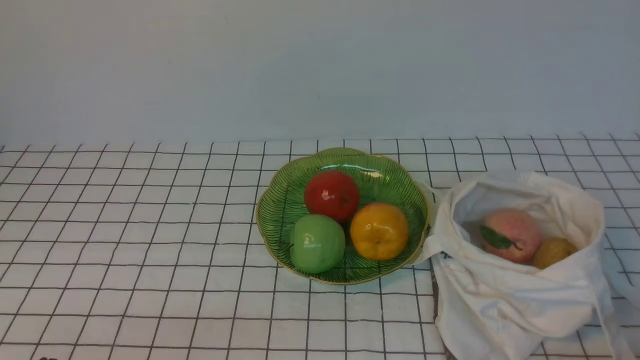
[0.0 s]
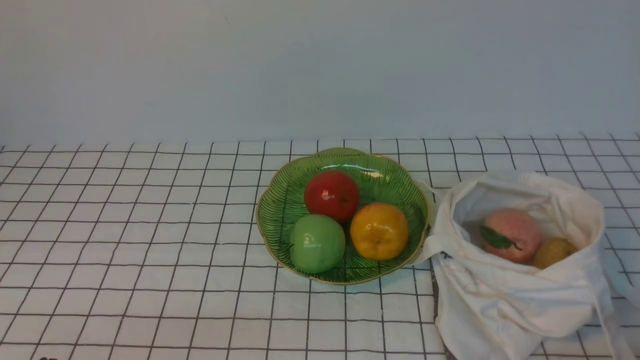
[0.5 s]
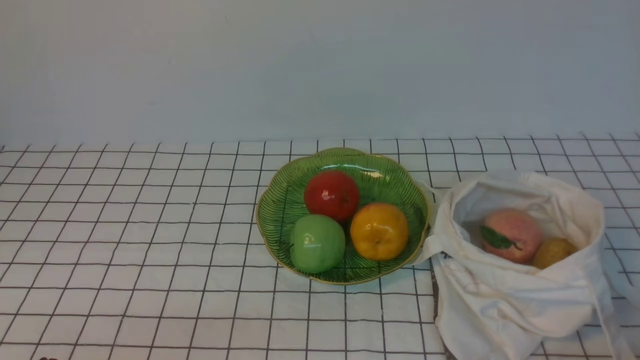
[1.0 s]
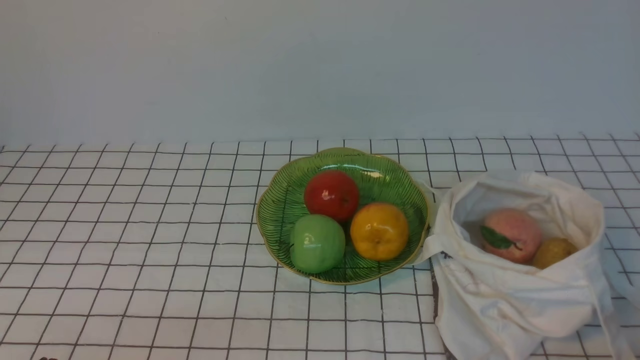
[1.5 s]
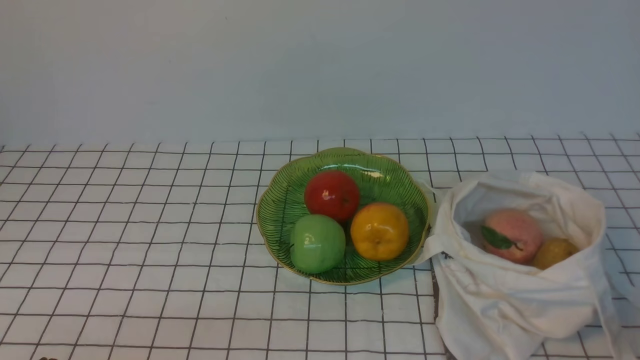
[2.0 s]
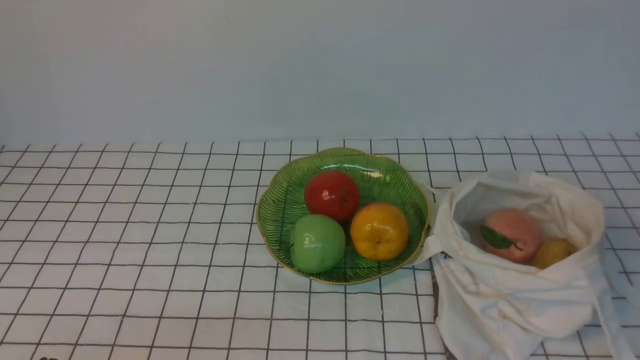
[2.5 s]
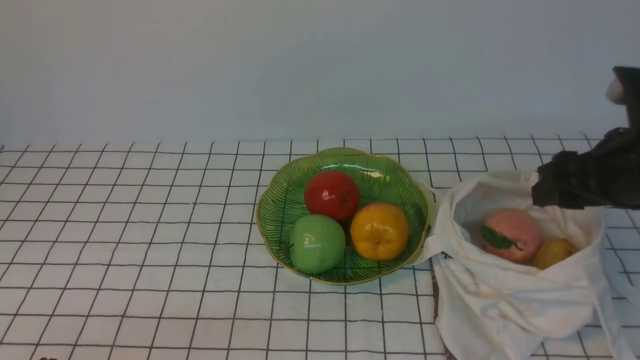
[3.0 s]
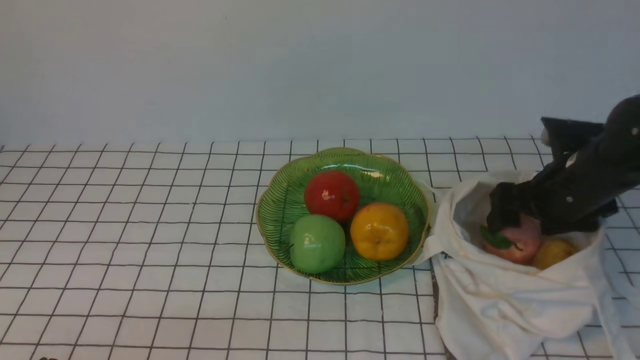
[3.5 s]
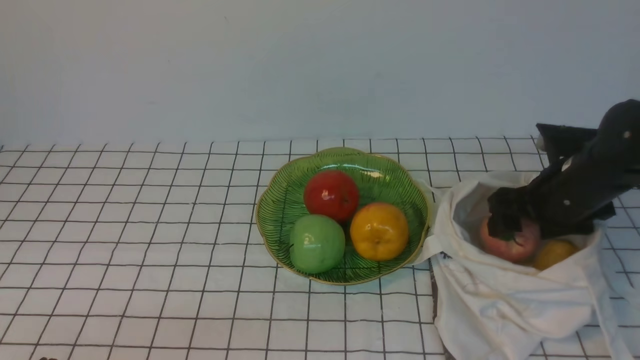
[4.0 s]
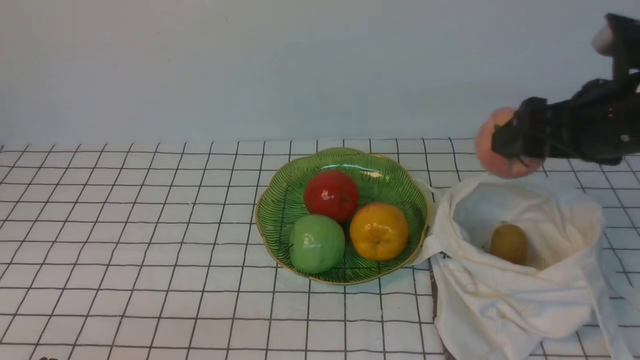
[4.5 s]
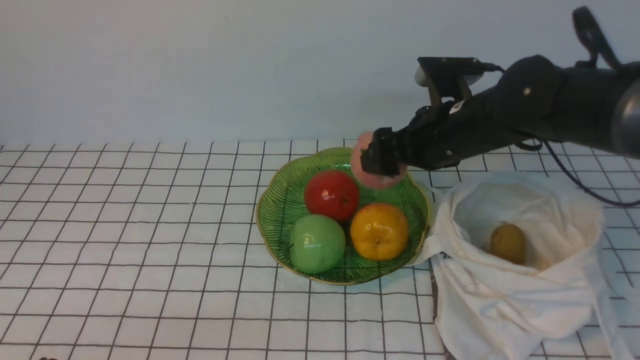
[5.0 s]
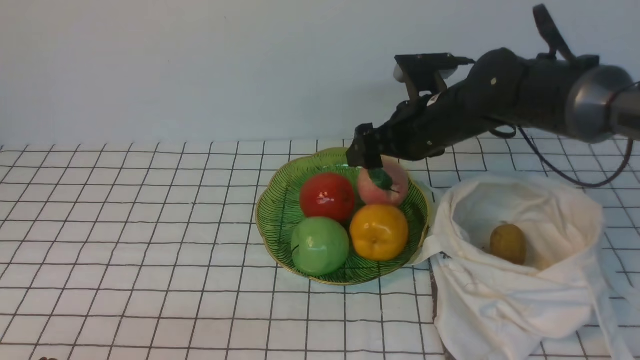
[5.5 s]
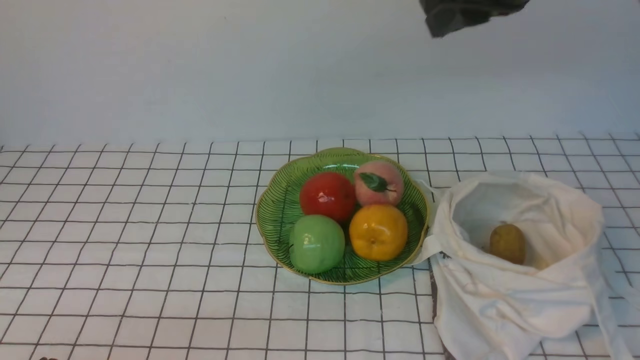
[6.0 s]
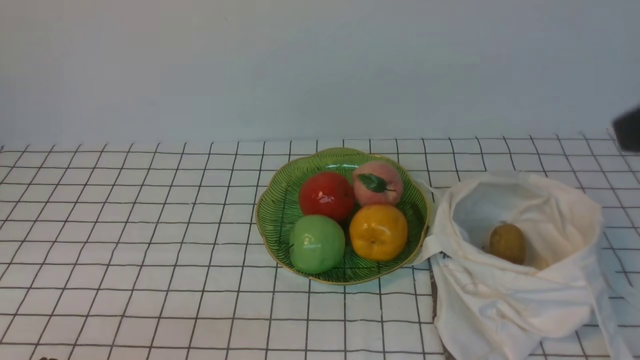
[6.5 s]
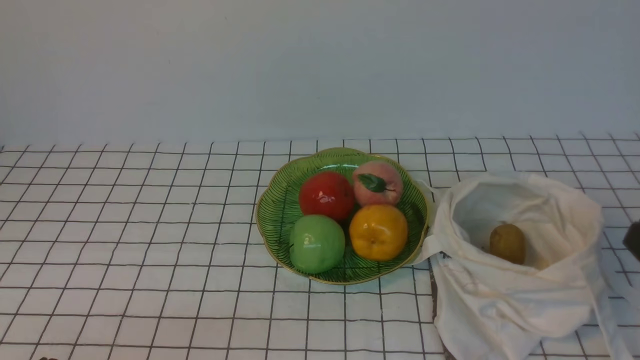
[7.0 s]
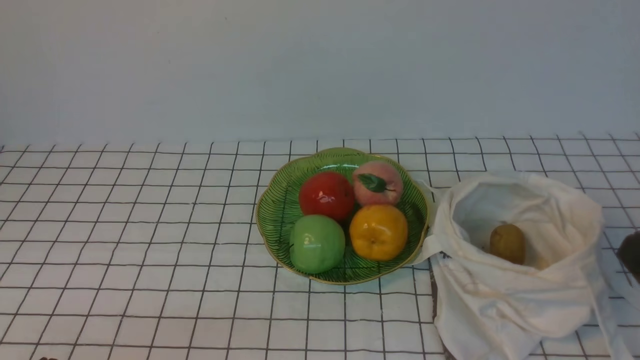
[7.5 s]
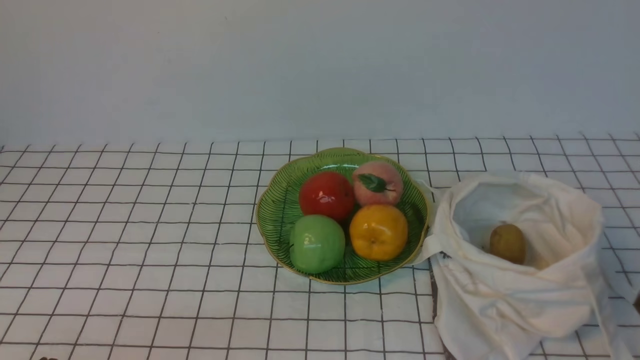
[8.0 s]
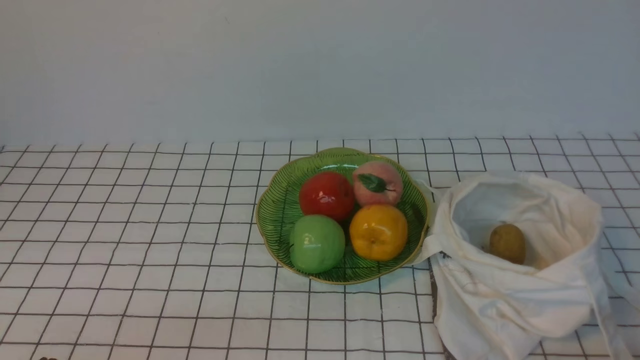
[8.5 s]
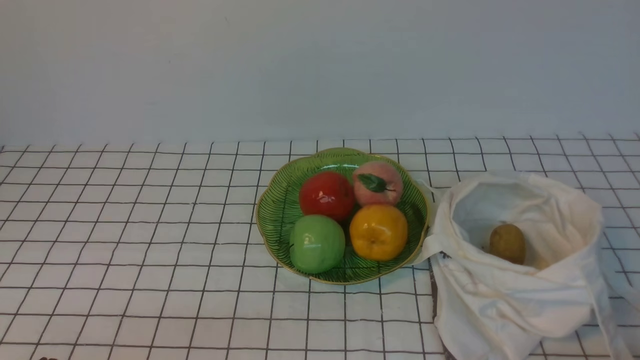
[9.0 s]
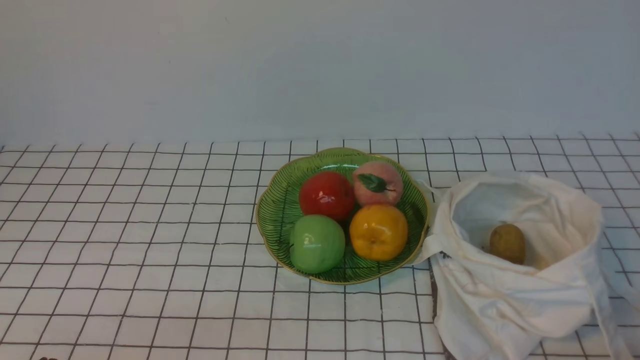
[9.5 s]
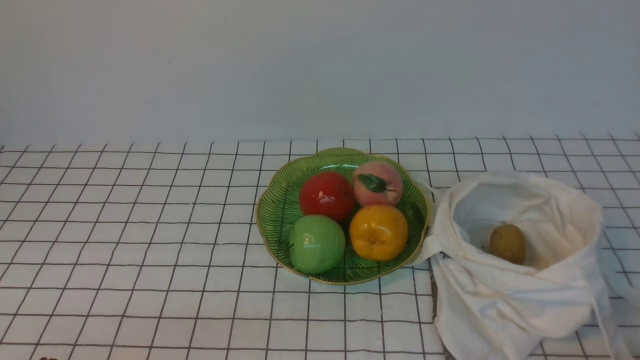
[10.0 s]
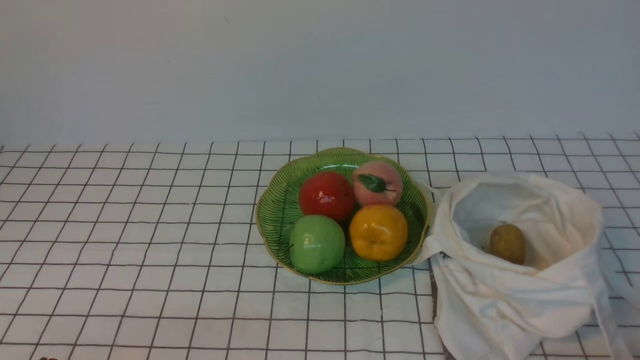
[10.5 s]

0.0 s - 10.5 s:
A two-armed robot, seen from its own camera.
Step, 0.0 s - 4.0 s: use the right arm to grab a peach from the bag.
Step, 4.5 s - 5.5 s: use the right arm to put the peach into the empty plate on the left.
2.0 s - 4.0 s: The right gripper heads forward, covering about 30 cm, and opens up.
4.0 s - 6.5 s: The right gripper shifts roughly 30 cm upward and backward, and closes its fingers.
6.5 s - 8.5 s: The right gripper goes some 25 cm downward.
8.5 s - 10.5 s: Both grippers stay put.
